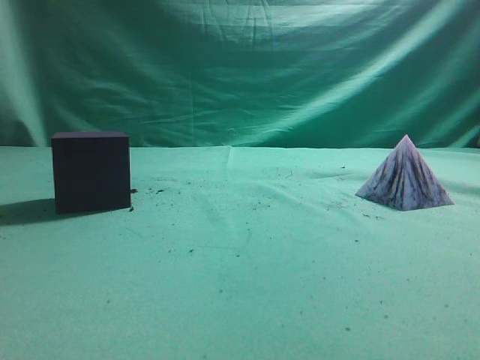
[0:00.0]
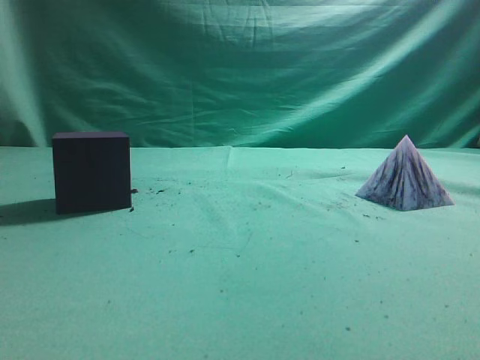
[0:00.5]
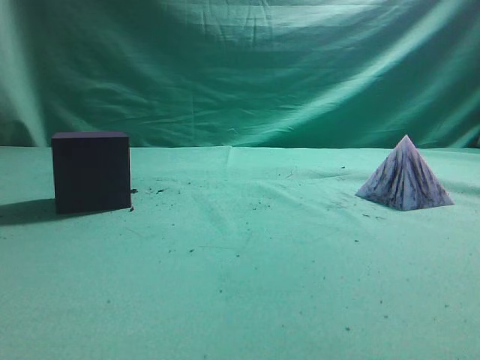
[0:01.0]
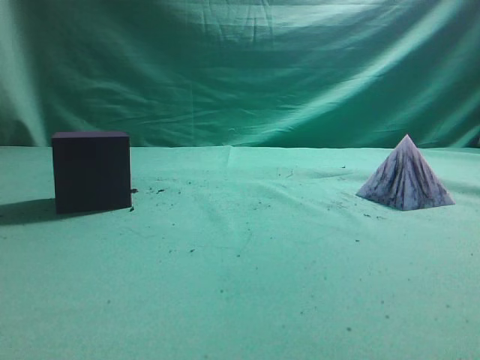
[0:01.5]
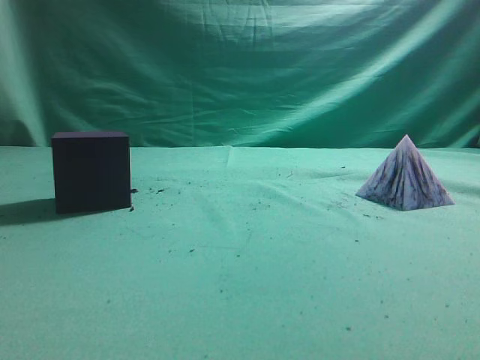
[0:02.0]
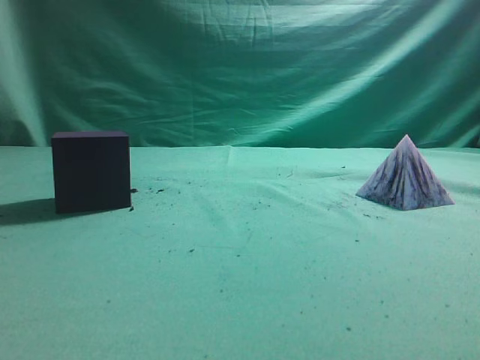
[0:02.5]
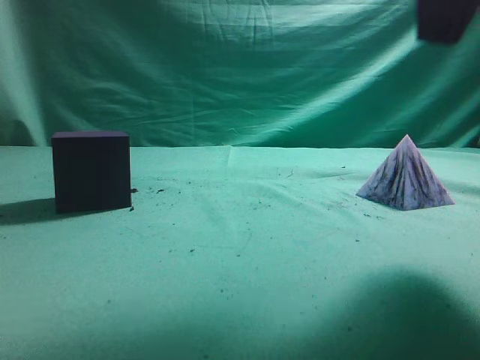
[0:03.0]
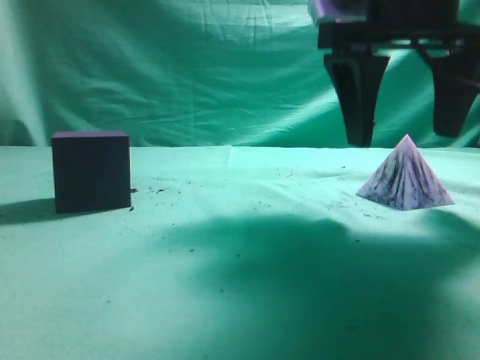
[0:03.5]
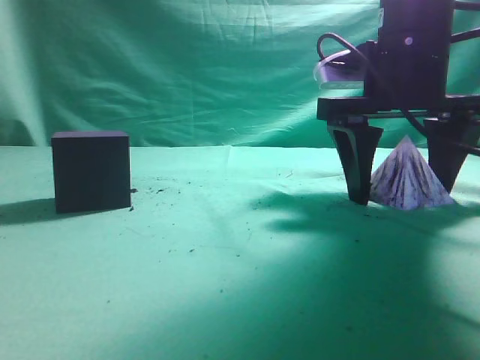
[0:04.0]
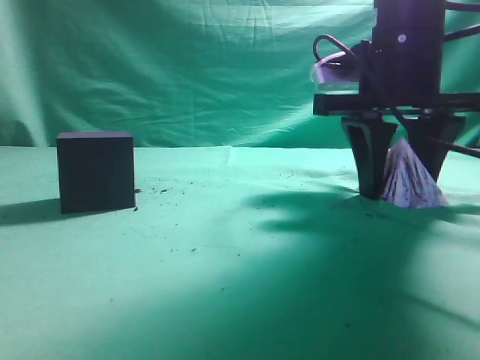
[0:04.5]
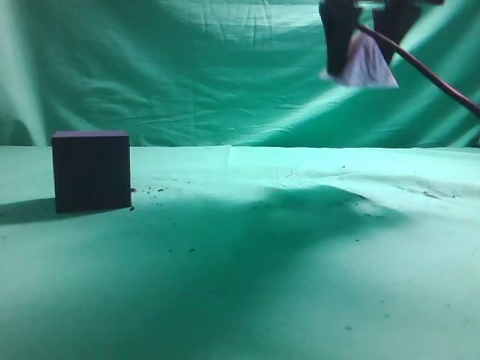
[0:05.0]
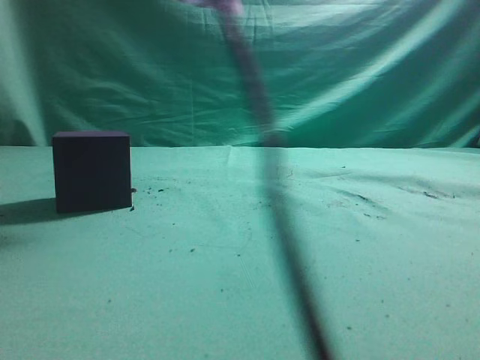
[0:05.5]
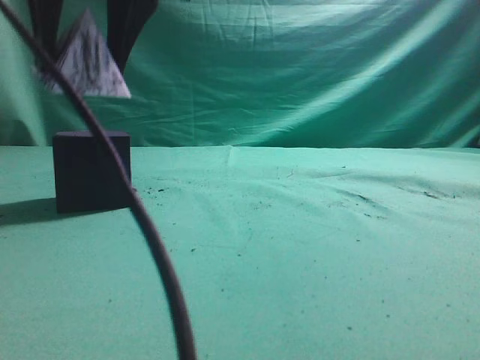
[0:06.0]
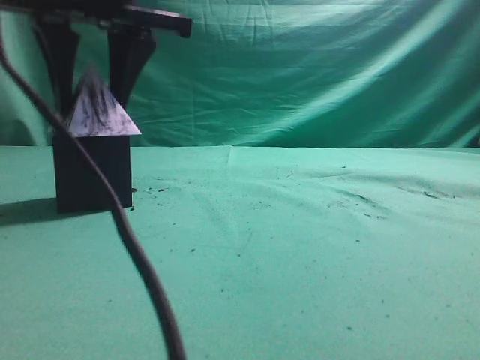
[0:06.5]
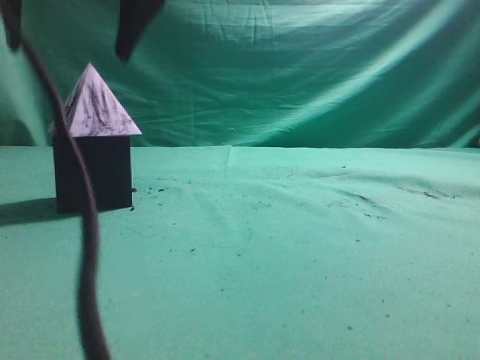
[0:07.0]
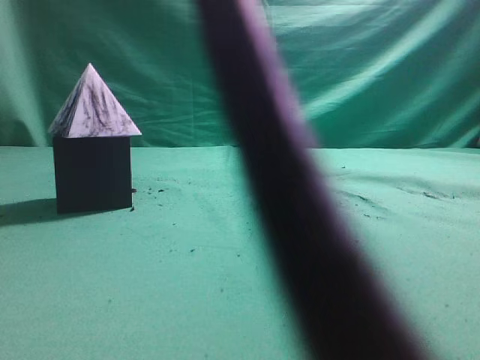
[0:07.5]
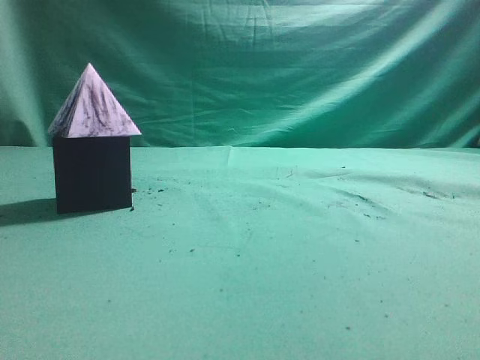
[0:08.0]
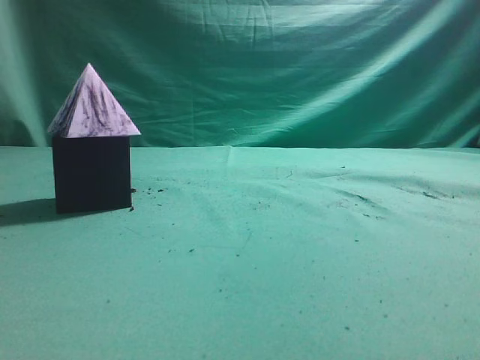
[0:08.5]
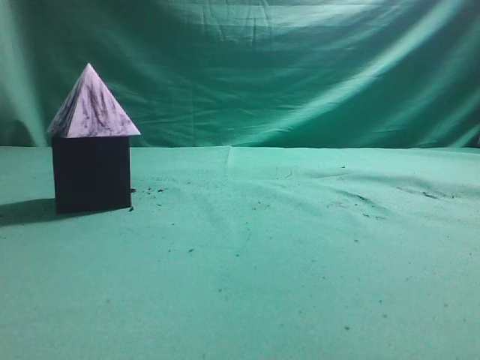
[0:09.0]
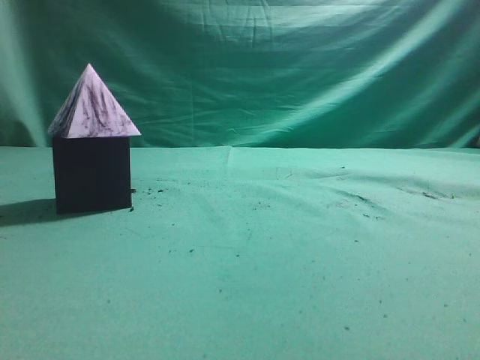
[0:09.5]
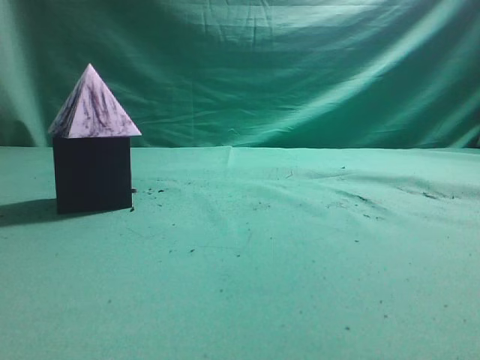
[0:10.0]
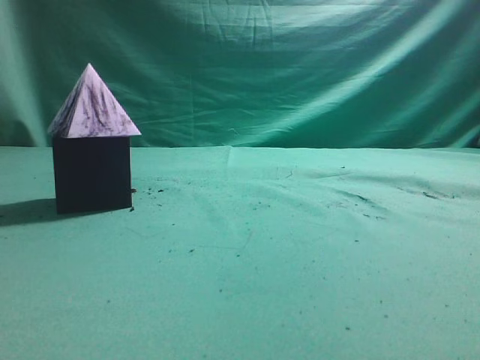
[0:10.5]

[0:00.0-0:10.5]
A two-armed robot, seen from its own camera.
Task of the whole recording: pick up the square pyramid from the table and place it on the cube block.
Step, 0:00.0 to 0:04.5: Grasp the triangular block.
Step, 0:05.0 to 0:06.5: Place the block onto the cube-shaped block.
0:02.0 to 0:04.0: The right gripper heads forward, to the left and downward, covering about 35 cm, and opens up.
0:04.0 to 0:06.5: The right gripper heads to the left, covering roughly 25 cm, and closes up.
0:06.5 to 0:08.5: The right gripper shifts some 40 cm to the right, backward and upward, and closes its fingers.
